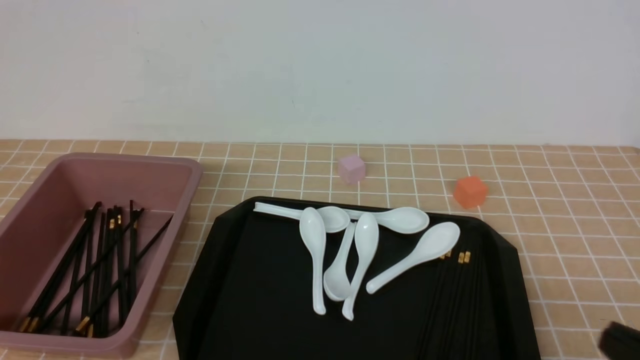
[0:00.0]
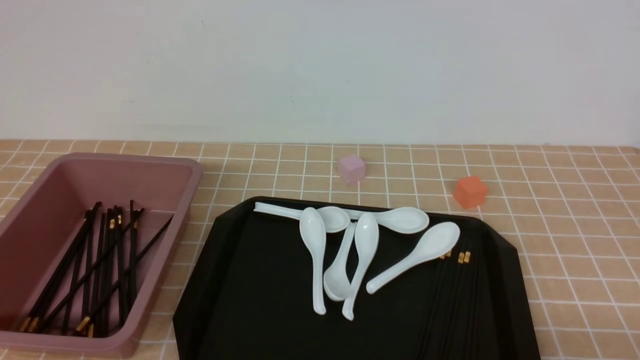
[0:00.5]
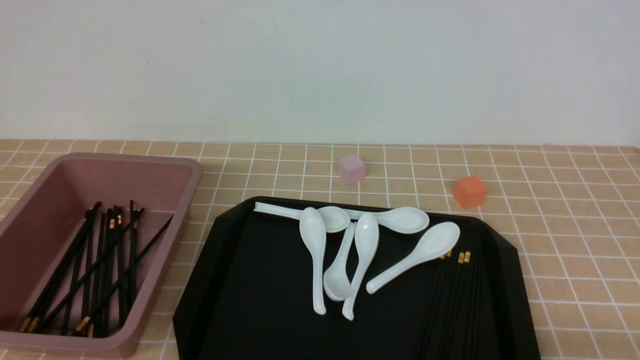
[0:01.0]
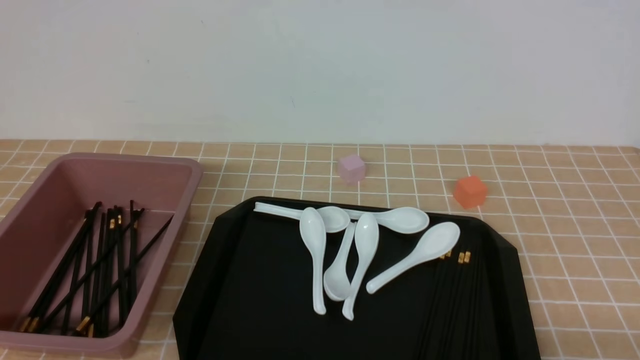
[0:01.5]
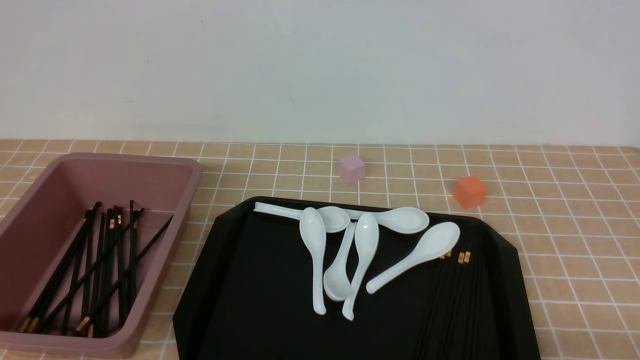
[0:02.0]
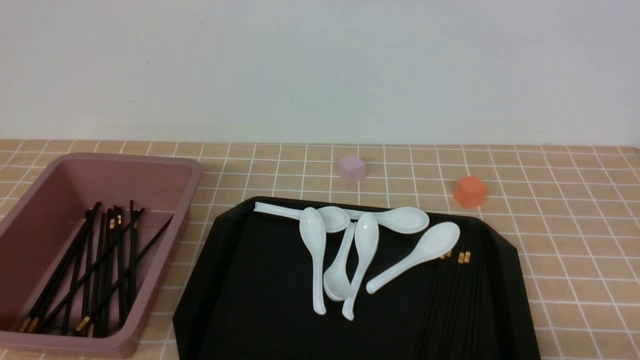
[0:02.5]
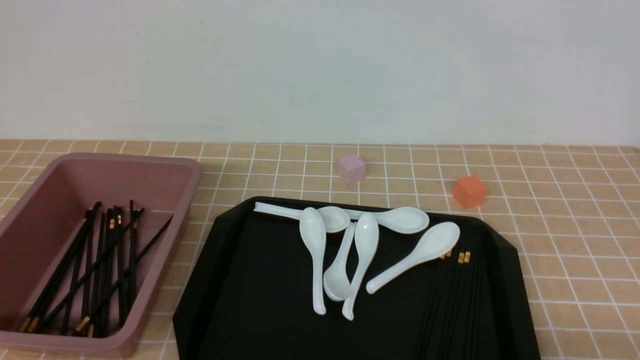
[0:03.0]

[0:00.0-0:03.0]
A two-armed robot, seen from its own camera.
0:00.0 to 0:01.5: The right gripper heads downward, covering some 5 cm.
0:01.5 to 0:03.0: Both grippers stay put.
